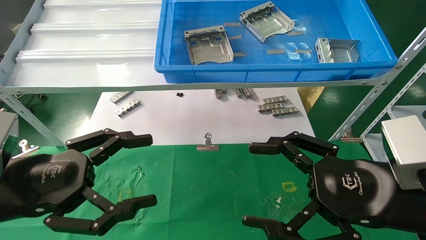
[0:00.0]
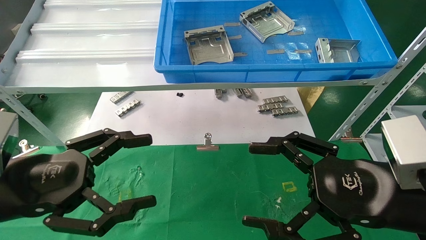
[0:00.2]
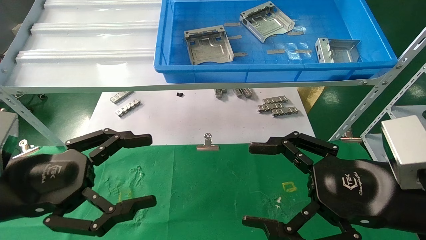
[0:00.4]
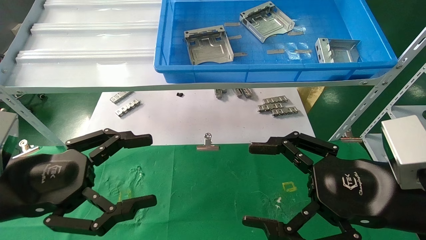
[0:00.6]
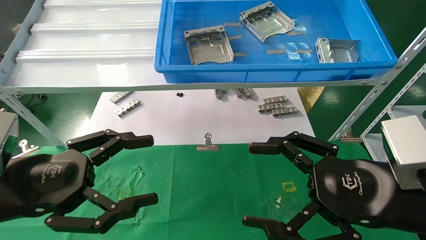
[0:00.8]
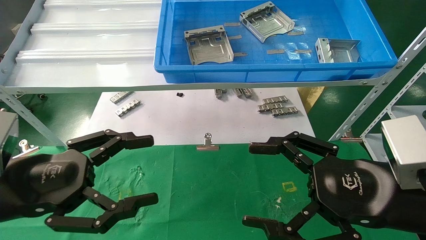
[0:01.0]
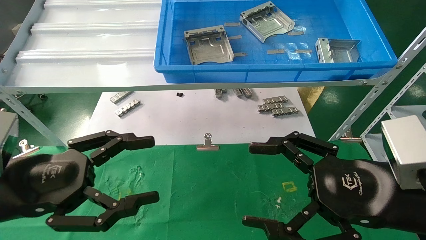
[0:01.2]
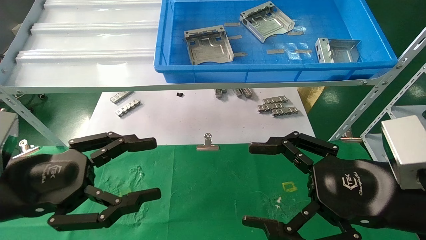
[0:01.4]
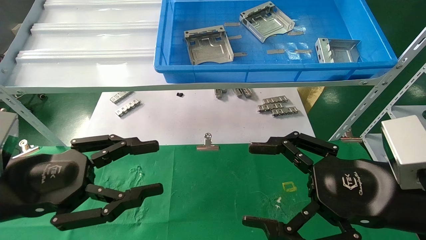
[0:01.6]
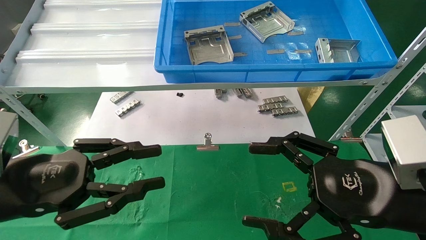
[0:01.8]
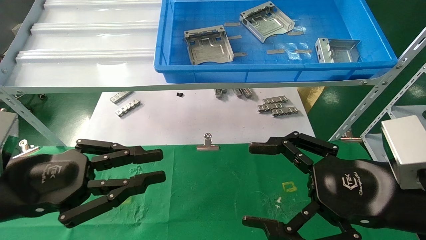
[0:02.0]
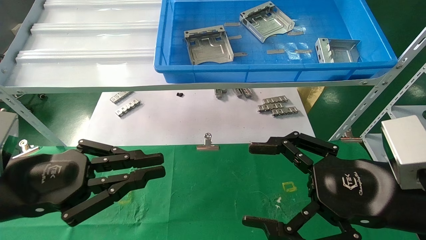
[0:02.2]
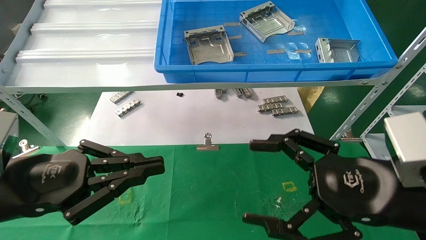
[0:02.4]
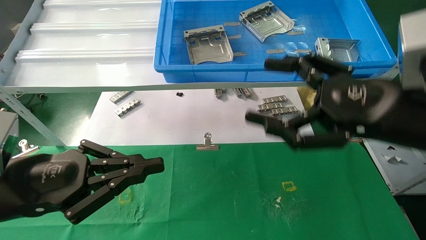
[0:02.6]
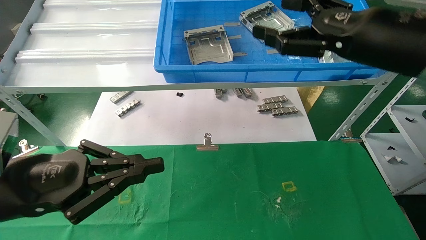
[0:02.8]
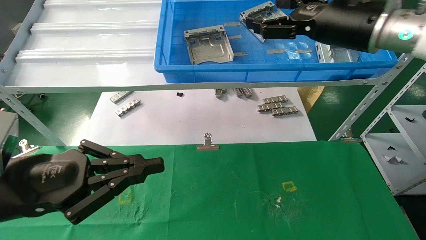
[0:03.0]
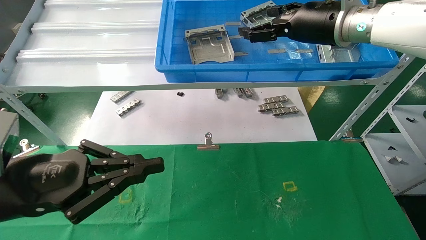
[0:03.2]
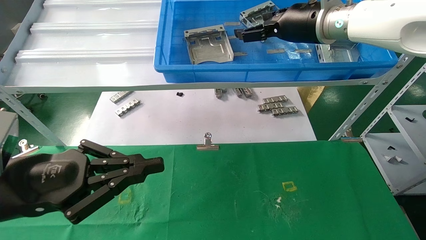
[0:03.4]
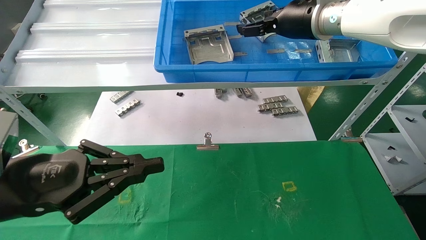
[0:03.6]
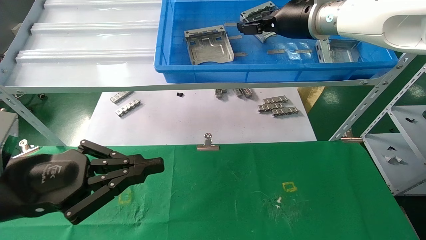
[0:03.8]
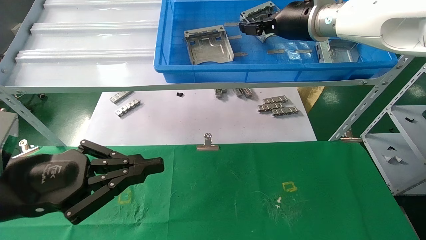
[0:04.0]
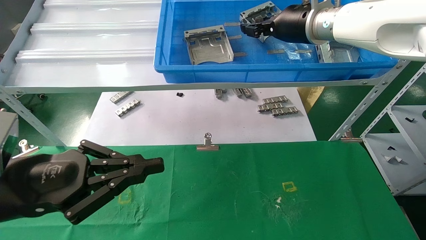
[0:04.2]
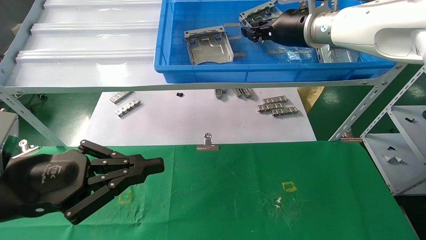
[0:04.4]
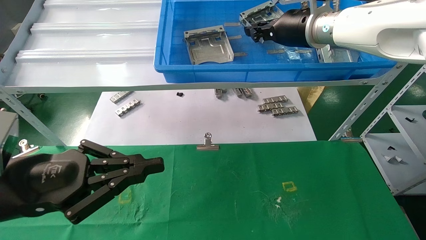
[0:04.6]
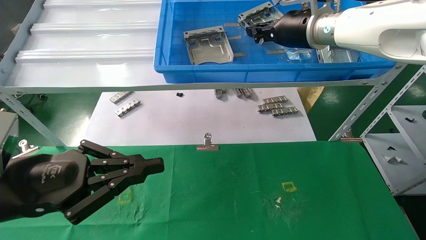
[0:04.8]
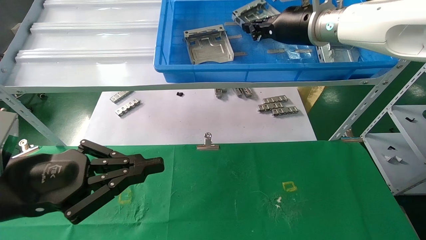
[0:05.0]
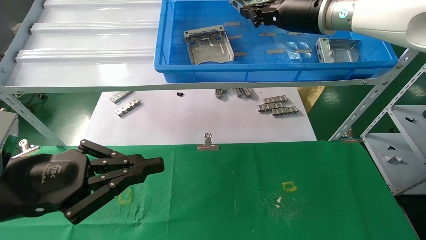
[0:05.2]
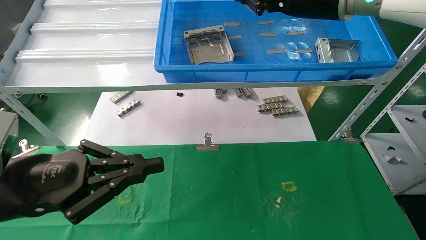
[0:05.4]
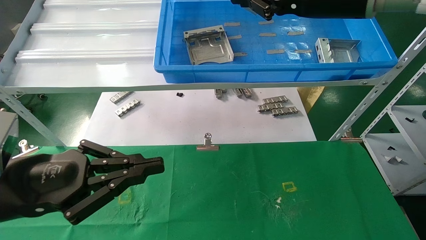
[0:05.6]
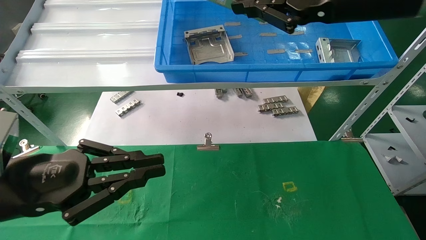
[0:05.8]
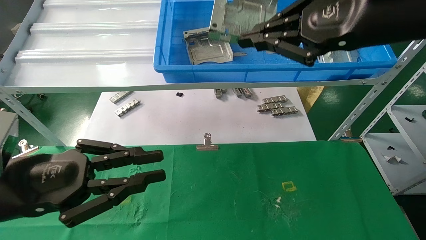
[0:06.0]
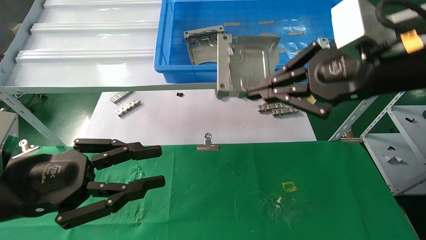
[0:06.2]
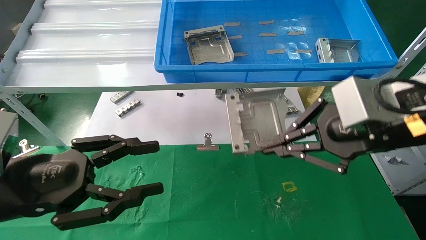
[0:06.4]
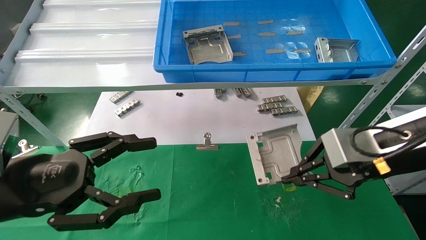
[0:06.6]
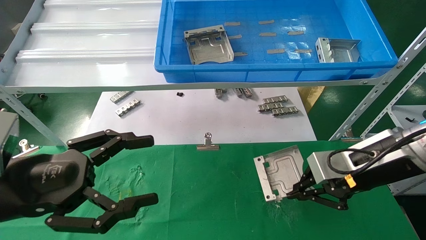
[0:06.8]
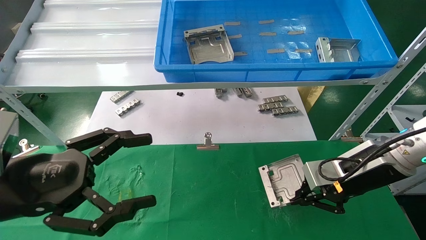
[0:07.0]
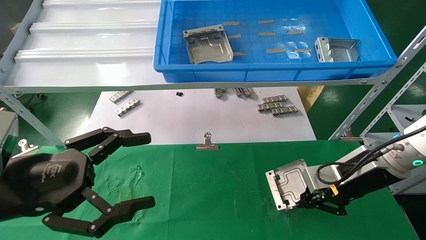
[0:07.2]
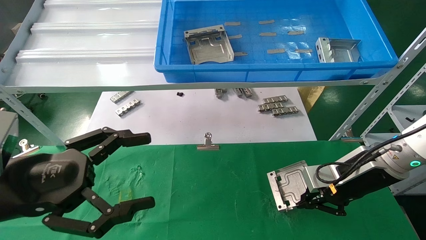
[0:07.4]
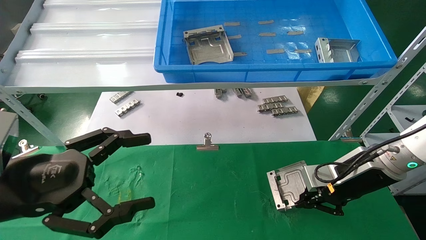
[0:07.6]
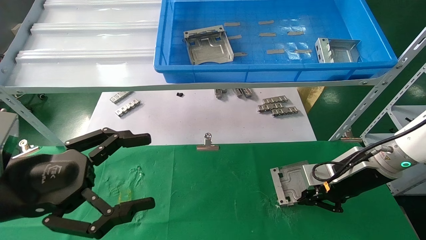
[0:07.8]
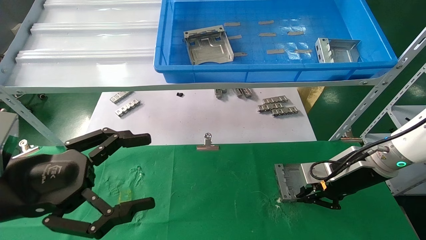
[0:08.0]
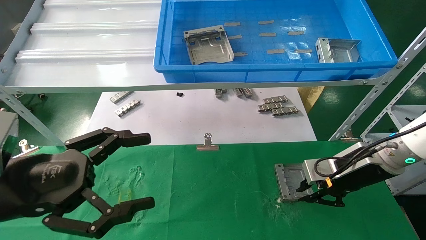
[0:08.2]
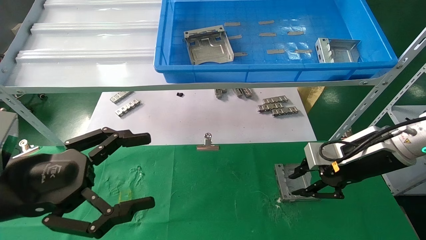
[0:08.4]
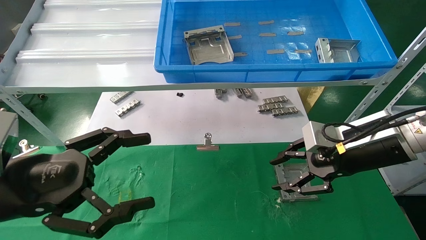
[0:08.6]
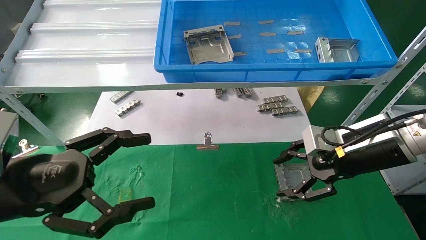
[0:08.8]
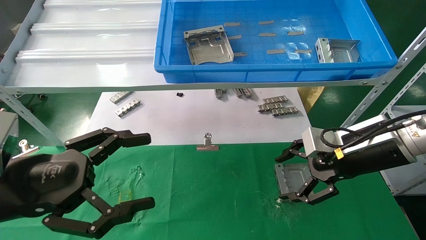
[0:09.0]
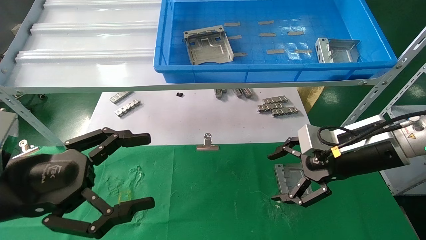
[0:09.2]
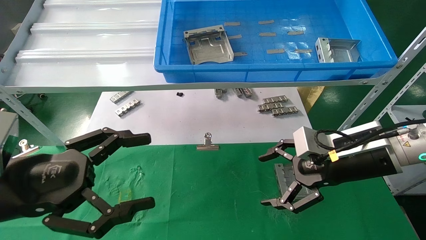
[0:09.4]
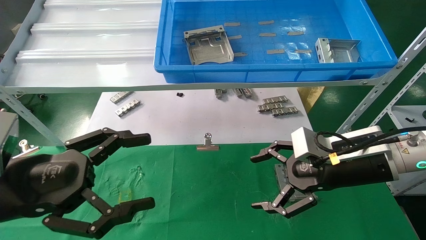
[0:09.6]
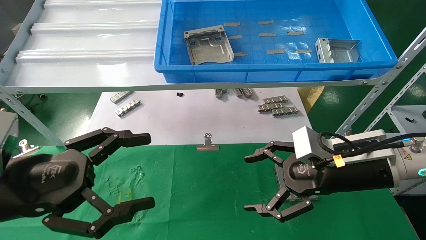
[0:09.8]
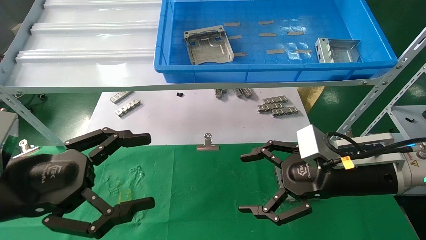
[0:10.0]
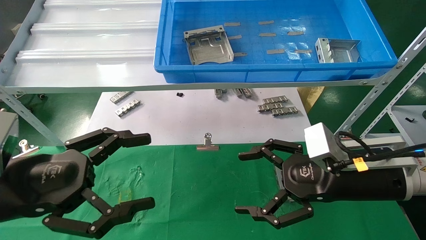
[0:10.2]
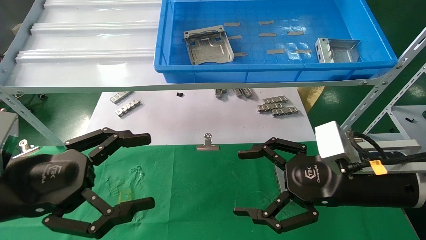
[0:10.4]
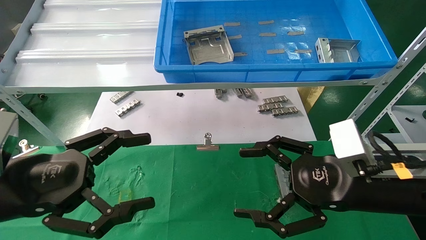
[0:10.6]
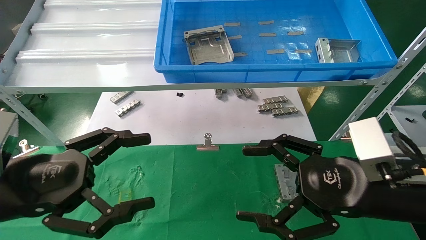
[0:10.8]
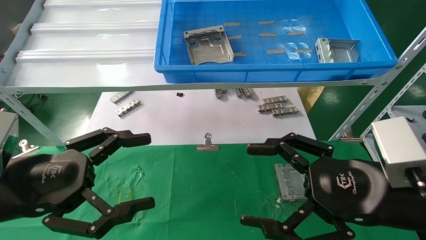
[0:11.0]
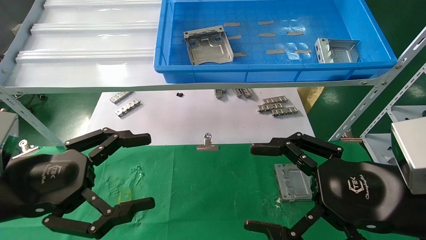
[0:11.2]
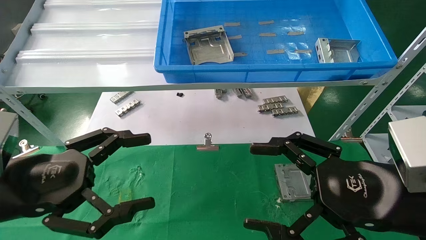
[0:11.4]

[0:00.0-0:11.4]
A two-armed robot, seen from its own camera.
Task of the whole recording: use the mechanical arm to pick up the parts and place them on the table.
Step, 0:02.0 to 0:05.6: Pick up the hard drive bracket from the feeding area.
Step, 0:05.8 to 0:08.8: Place the hard drive bracket into the box.
0:00.0 to 0:01.4: The two grippers keep their place.
0:01.4 to 0:02.8: The right gripper goes approximately 20 cm upward and forward. The left gripper closes its fingers.
0:02.8 to 0:04.2: The right gripper shifts some 15 cm forward and to the left, and closes up.
0:04.2 to 0:05.6: The right gripper is displaced backward by roughly 10 cm, and closes up.
0:05.6 to 0:07.2: The left gripper opens; the right gripper goes about 25 cm downward.
0:07.2 to 0:08.6: The right gripper opens its fingers.
0:08.6 to 0:10.0: The right gripper ends up some 5 cm from where it was, and opens up.
0:10.0 to 0:11.4: The right gripper heads backward, covering approximately 10 cm.
